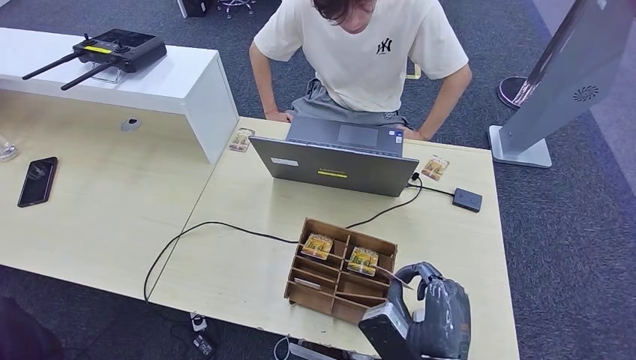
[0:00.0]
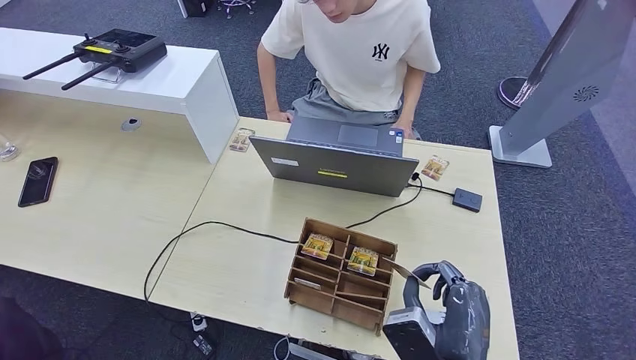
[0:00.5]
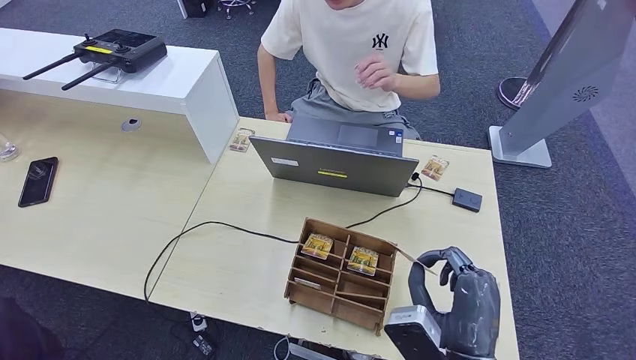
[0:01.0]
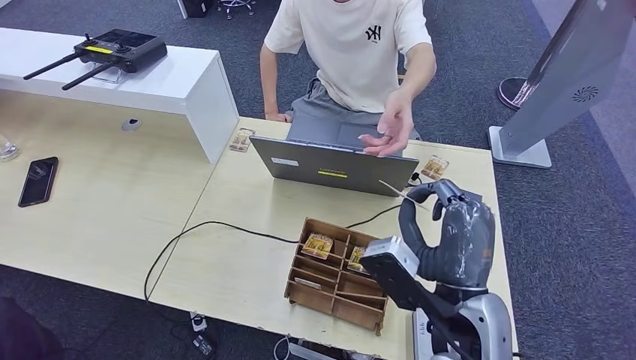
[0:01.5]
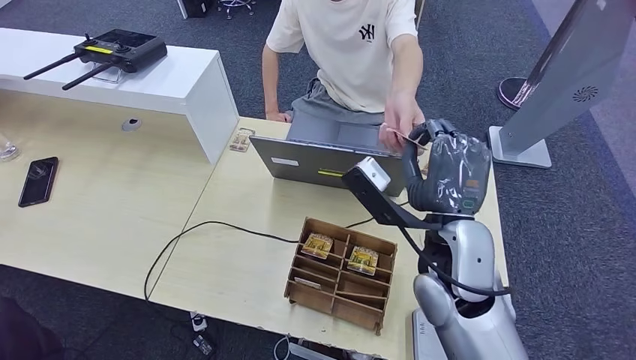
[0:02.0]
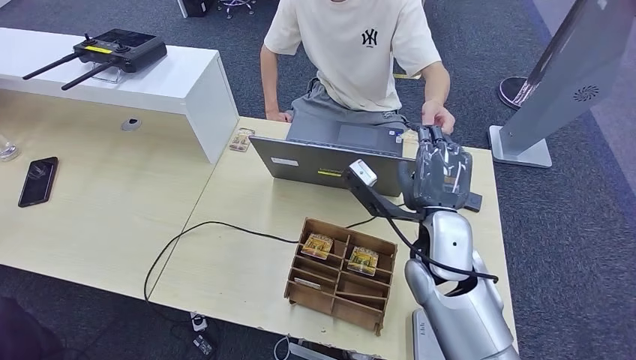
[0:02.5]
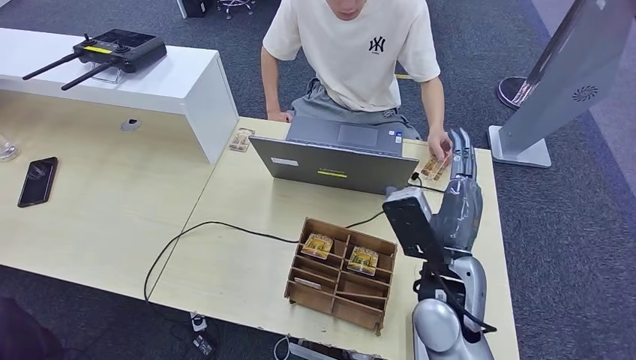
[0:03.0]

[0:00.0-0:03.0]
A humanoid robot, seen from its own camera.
Step, 0:01.0 to 0:03.0: Hand the room key to the person.
0:00.0 to 0:01.5: The right hand shifts some 10 cm upward and forward.
0:01.5 to 0:03.0: The right hand is displaced forward by about 5 cm.

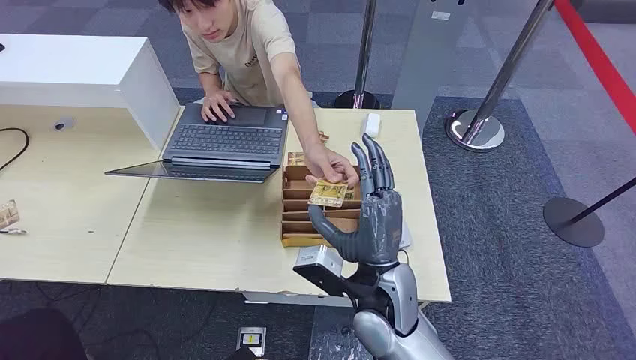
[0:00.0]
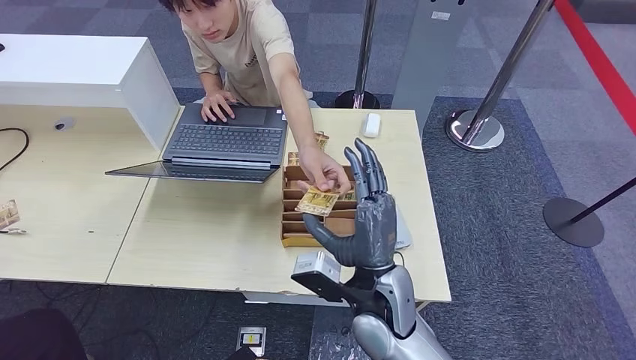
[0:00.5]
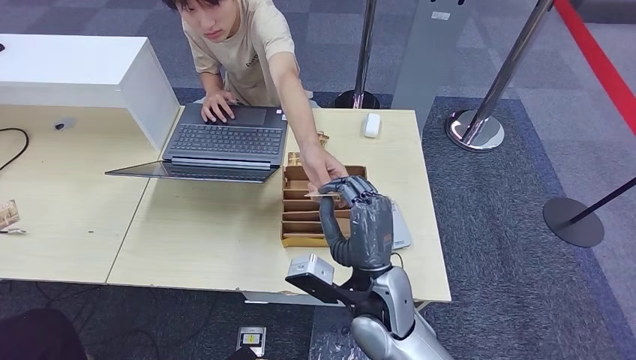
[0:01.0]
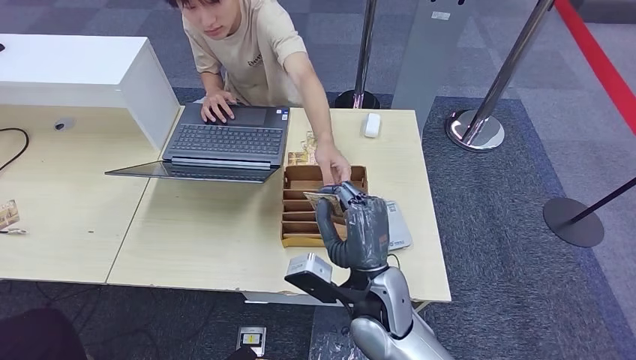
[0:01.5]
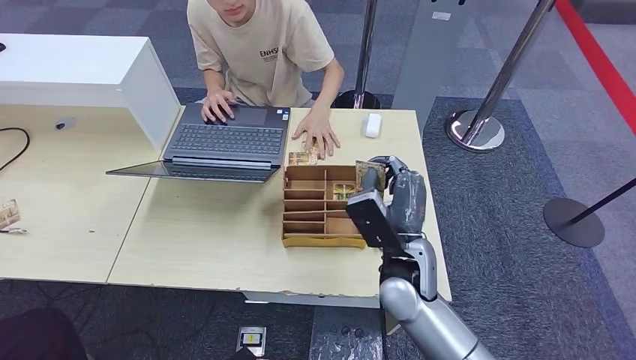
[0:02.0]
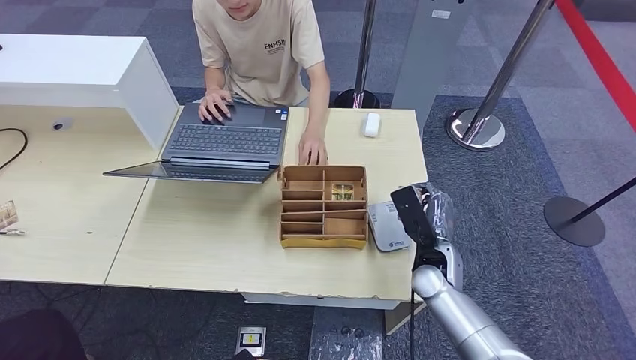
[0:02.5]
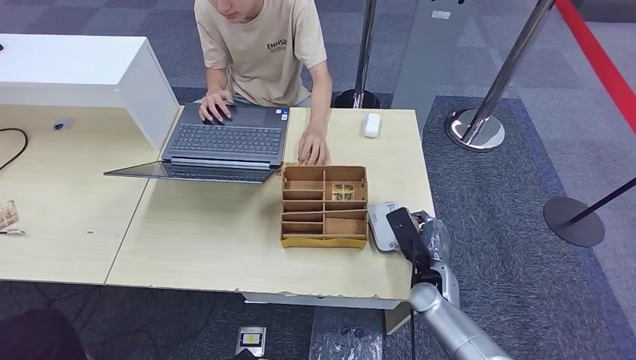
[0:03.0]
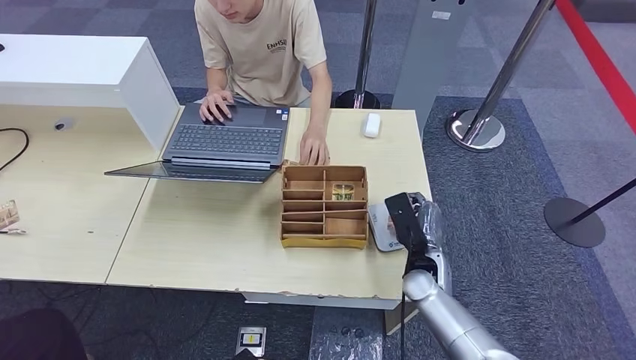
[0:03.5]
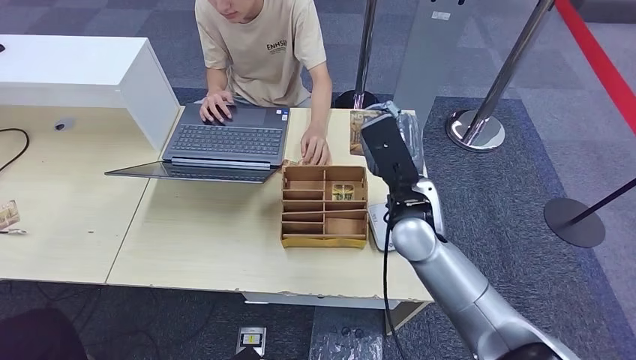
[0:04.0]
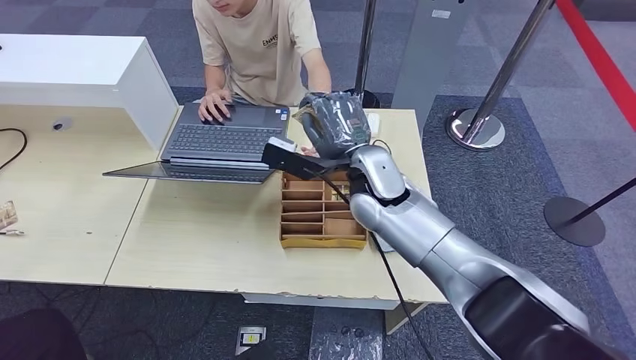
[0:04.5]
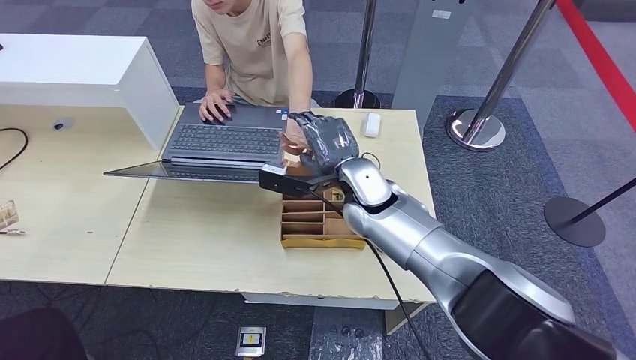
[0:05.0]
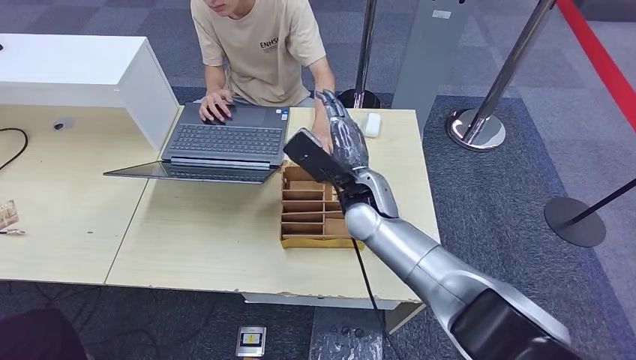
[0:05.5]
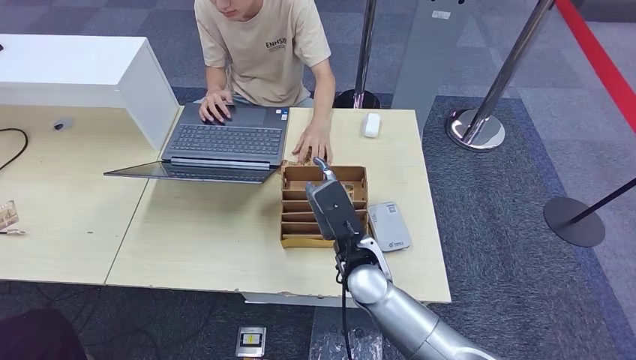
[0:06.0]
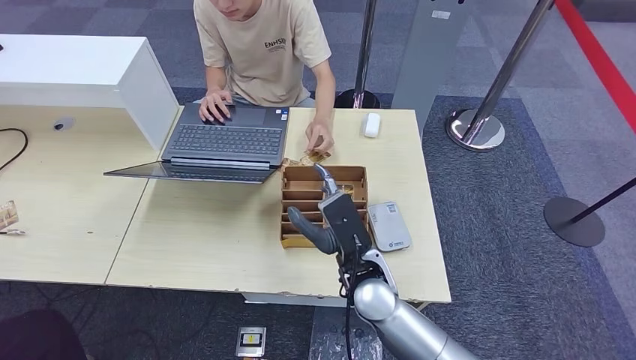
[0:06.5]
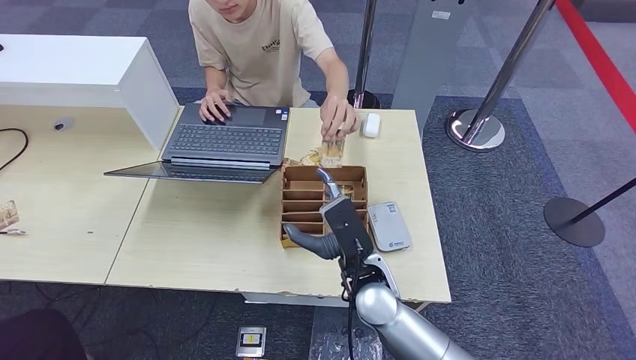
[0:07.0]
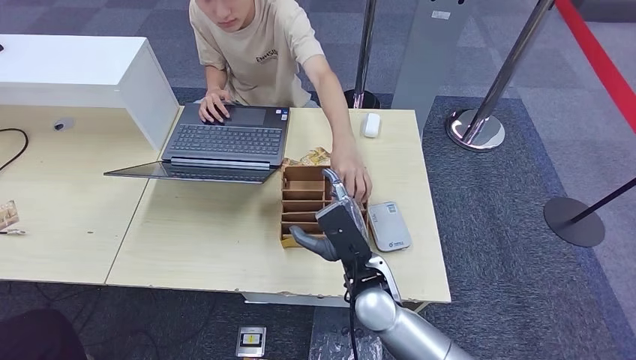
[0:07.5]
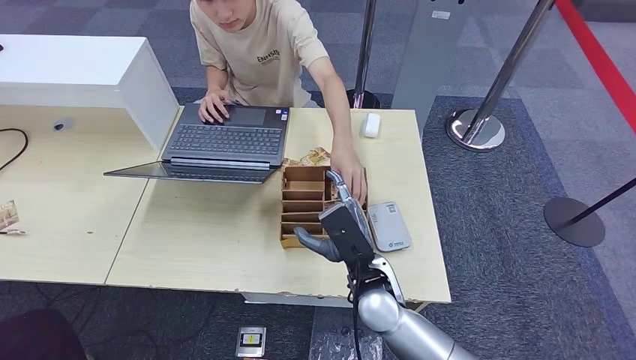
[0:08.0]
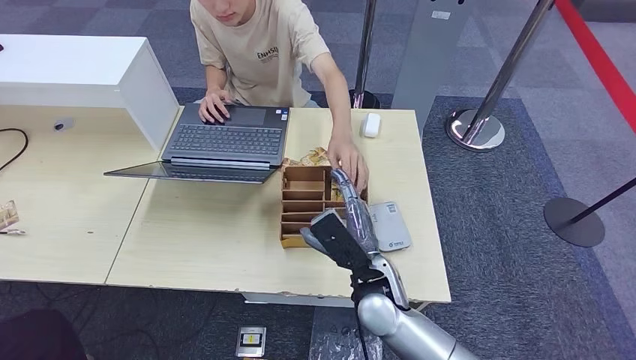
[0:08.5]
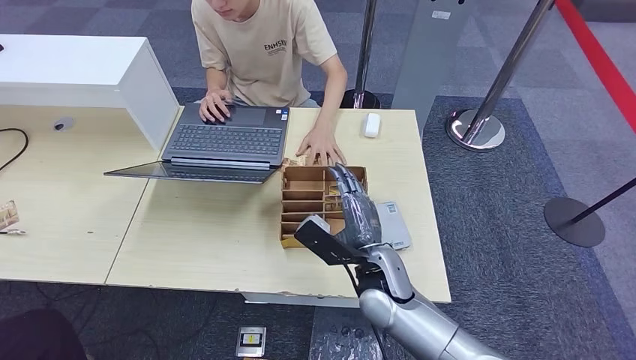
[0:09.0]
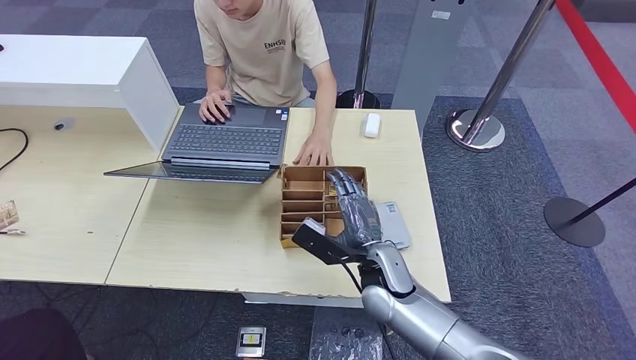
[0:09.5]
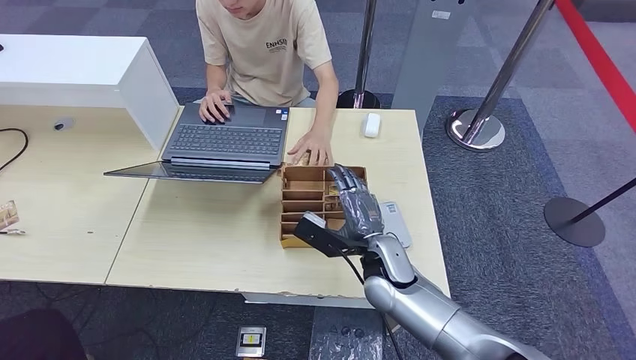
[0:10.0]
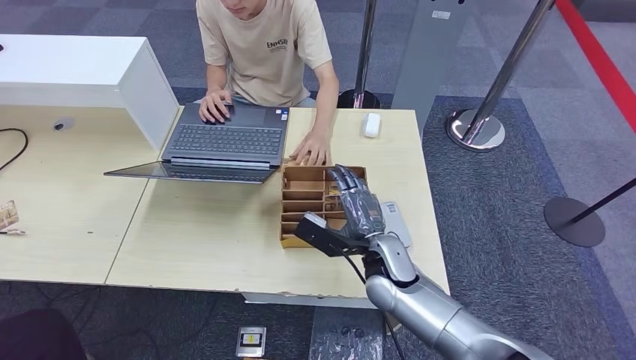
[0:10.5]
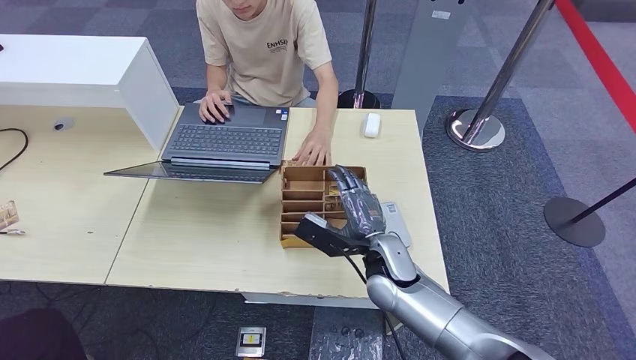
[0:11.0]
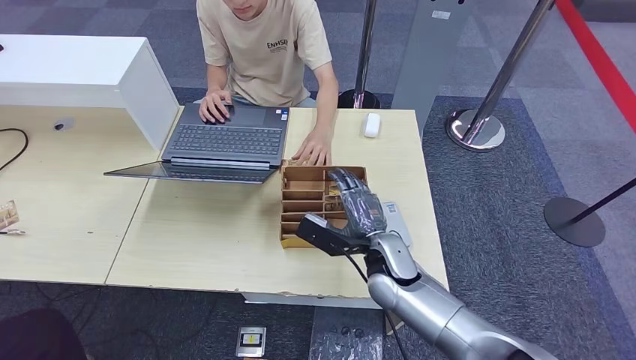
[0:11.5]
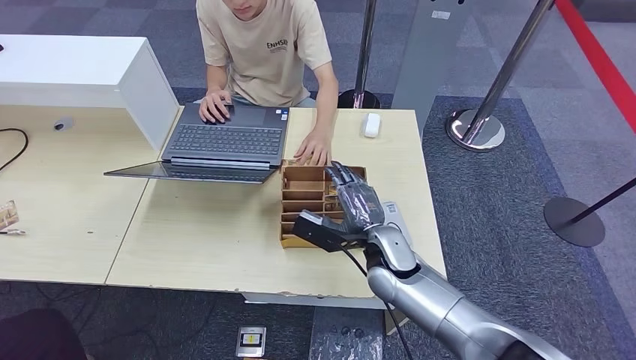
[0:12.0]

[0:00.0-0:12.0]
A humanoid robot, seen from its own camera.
Step, 0:00.0 to 0:02.0: Take the ID card from the person's hand.
Step, 0:03.5 to 0:05.0: Hand the ID card to the person.
0:02.0 to 0:04.0: The right hand goes roughly 10 cm upward and forward.
0:04.0 to 0:06.0: The right hand is displaced downward and to the left by about 15 cm.
0:06.0 to 0:08.0: The hands stay close to where they were, moving slightly.
0:10.0 to 0:12.0: The hands stay close to where they were, moving slightly.

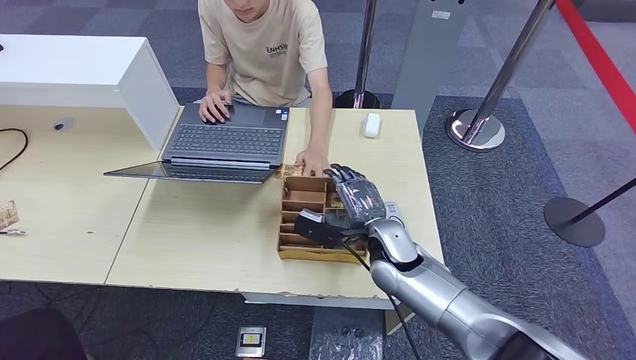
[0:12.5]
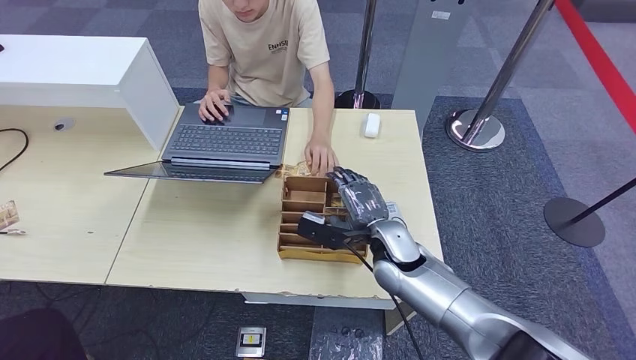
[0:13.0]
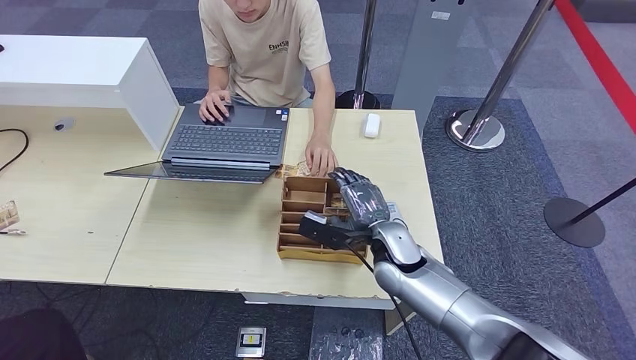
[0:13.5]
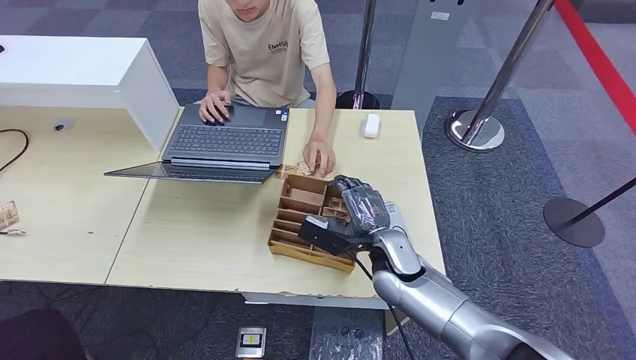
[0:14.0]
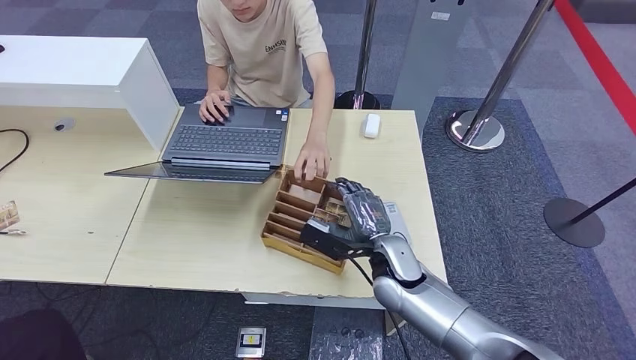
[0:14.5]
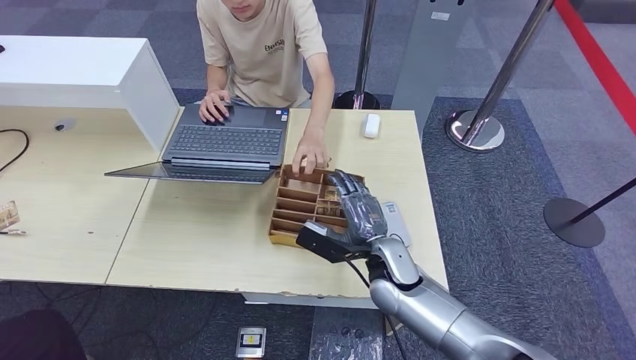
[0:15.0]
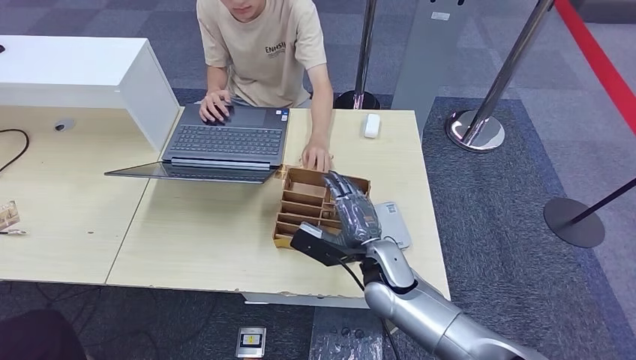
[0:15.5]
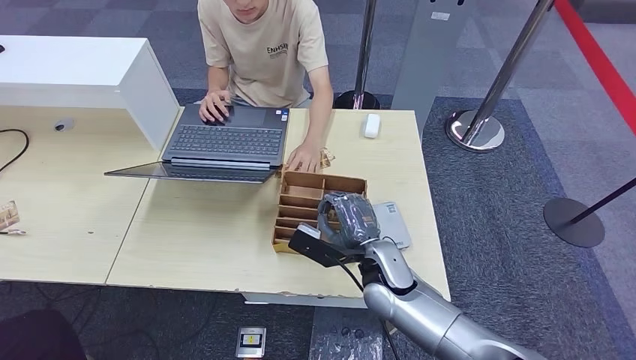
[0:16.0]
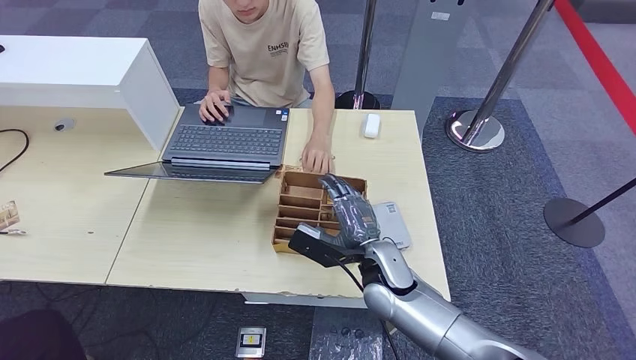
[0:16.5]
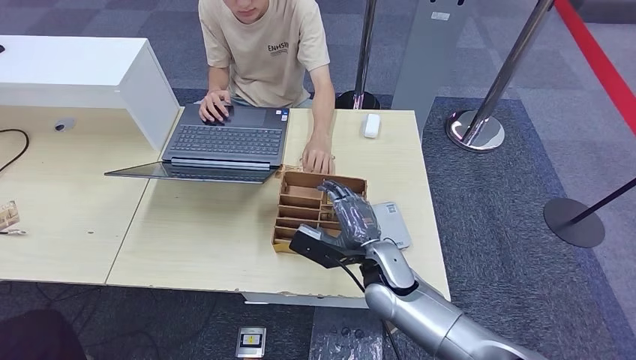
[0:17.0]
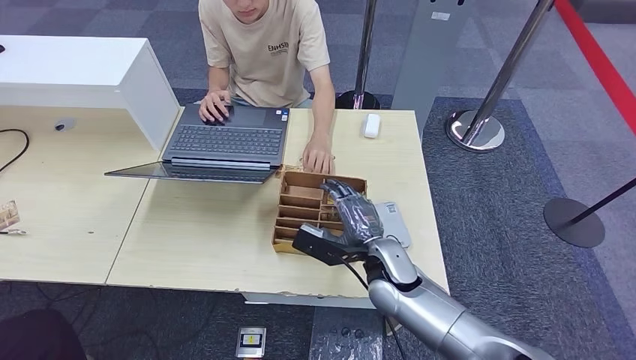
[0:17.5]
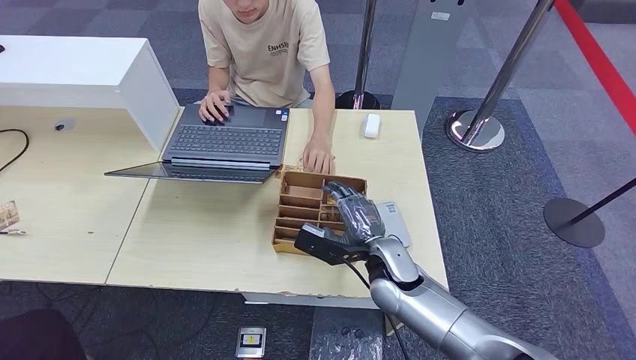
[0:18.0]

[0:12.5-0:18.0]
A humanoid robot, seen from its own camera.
0:12.5 to 0:18.0: The hands move only a little.
